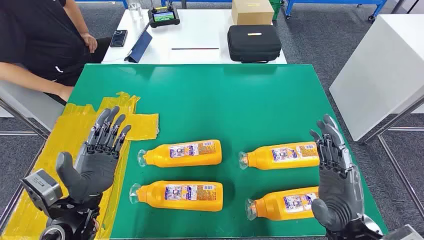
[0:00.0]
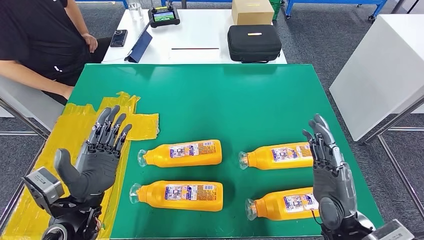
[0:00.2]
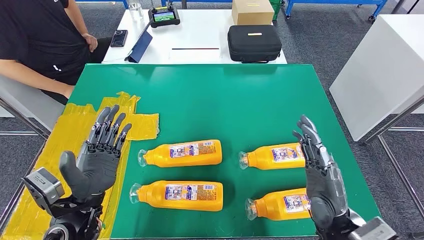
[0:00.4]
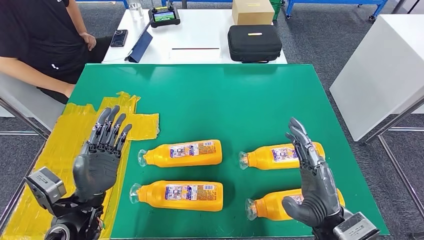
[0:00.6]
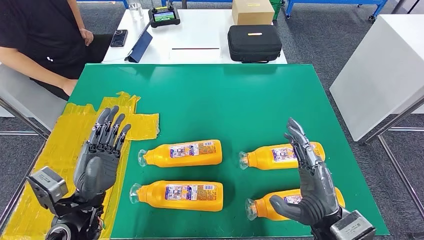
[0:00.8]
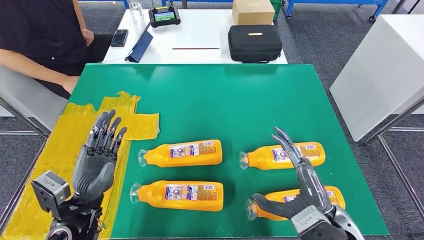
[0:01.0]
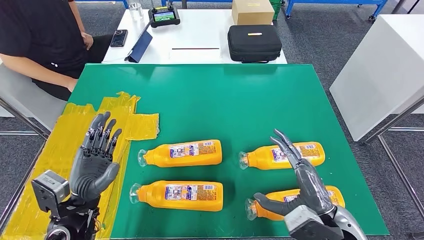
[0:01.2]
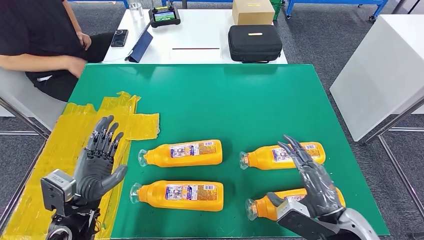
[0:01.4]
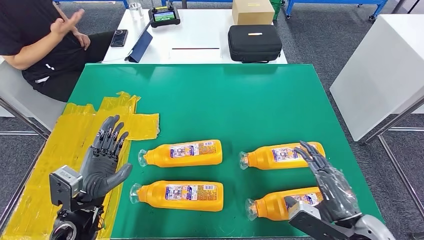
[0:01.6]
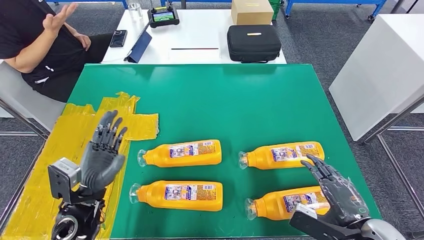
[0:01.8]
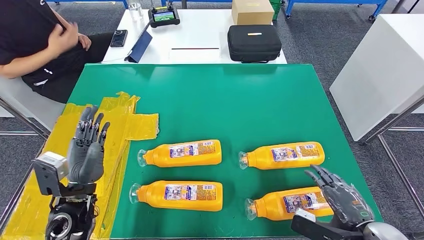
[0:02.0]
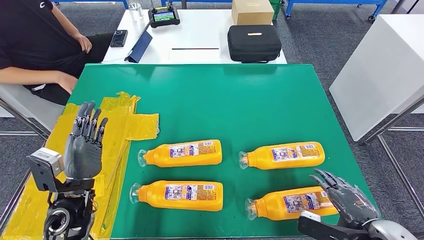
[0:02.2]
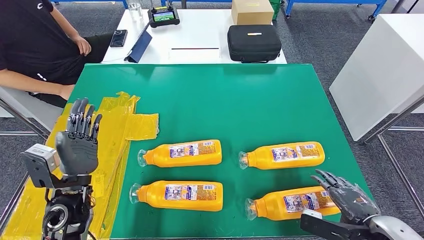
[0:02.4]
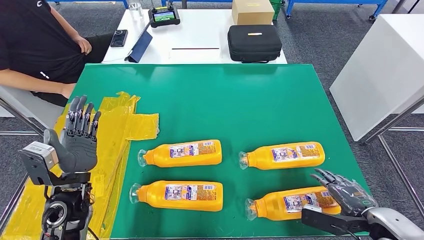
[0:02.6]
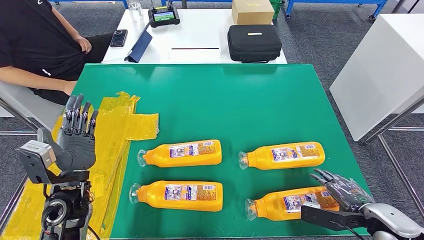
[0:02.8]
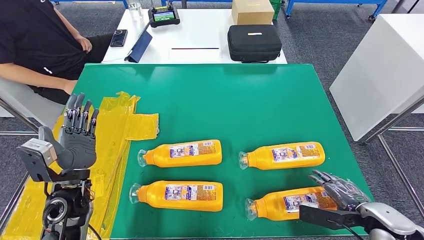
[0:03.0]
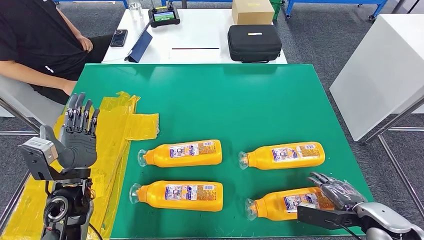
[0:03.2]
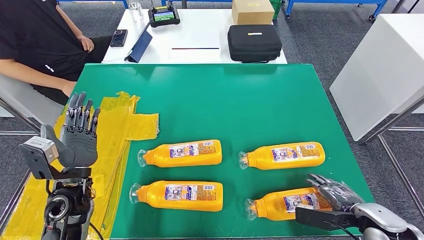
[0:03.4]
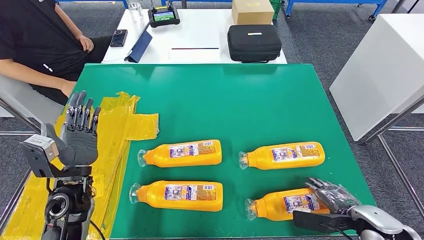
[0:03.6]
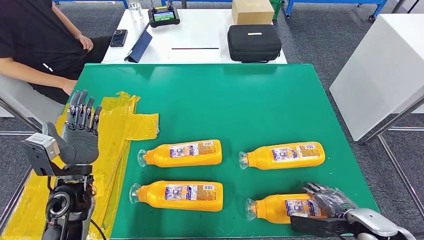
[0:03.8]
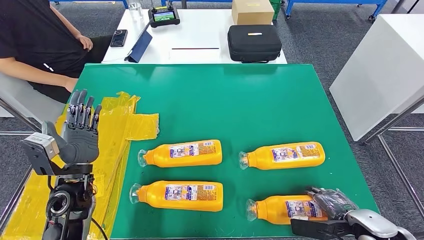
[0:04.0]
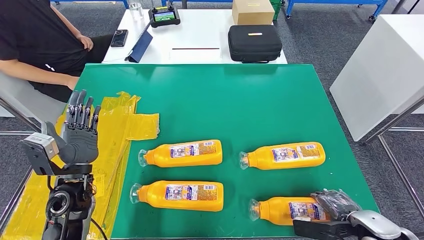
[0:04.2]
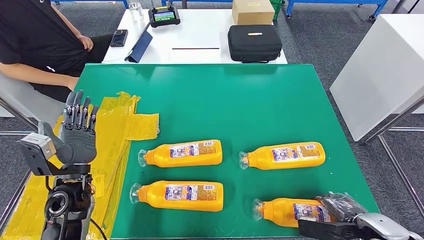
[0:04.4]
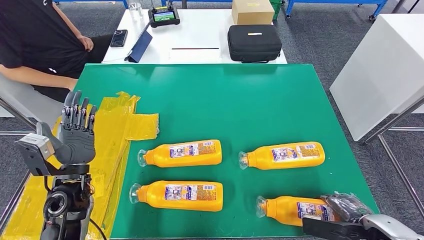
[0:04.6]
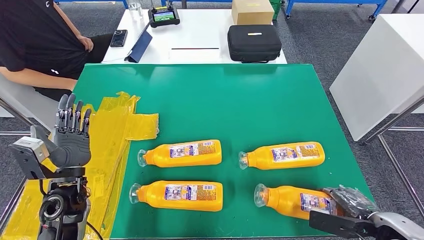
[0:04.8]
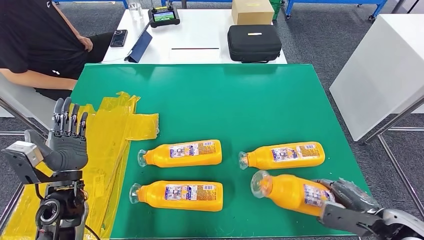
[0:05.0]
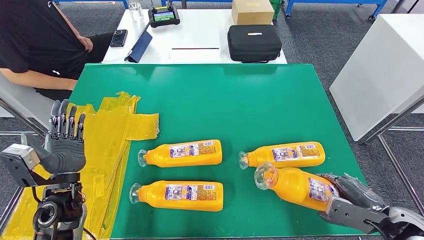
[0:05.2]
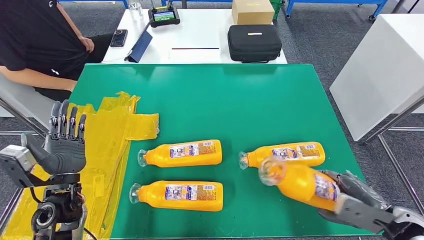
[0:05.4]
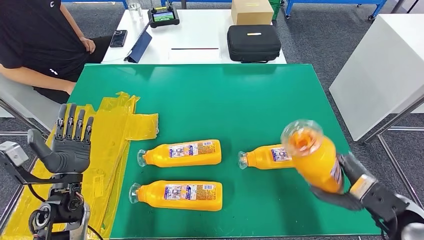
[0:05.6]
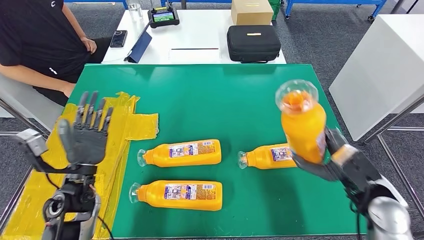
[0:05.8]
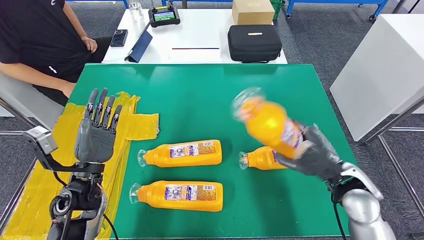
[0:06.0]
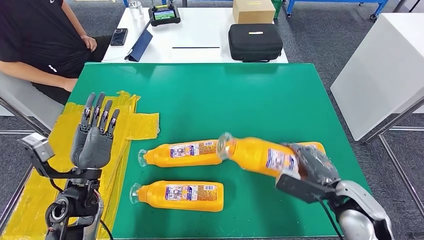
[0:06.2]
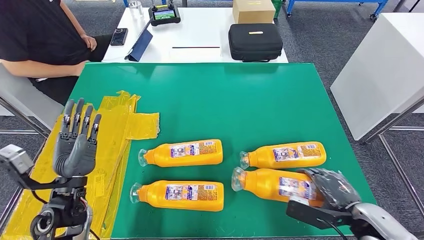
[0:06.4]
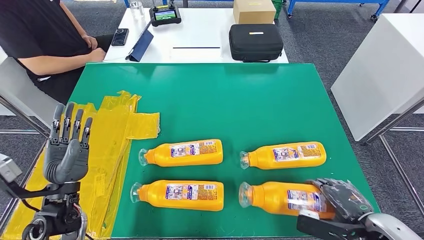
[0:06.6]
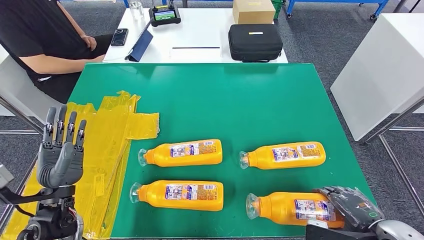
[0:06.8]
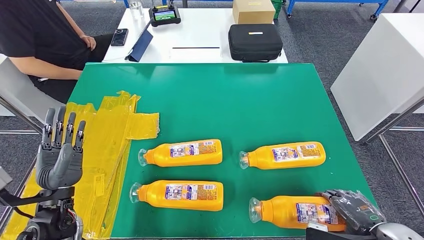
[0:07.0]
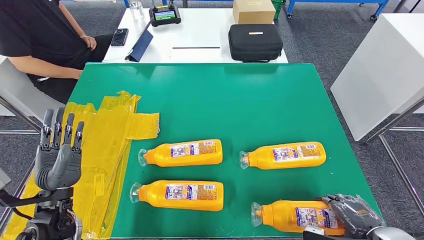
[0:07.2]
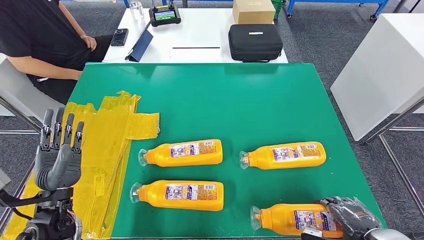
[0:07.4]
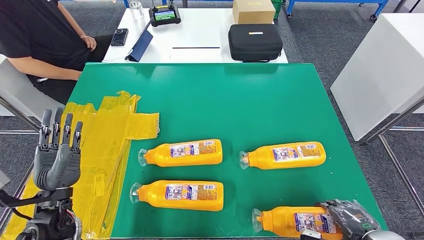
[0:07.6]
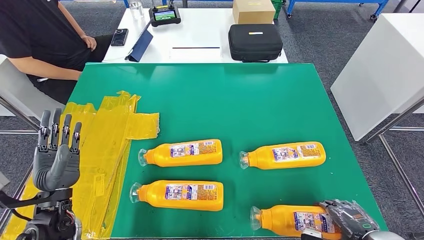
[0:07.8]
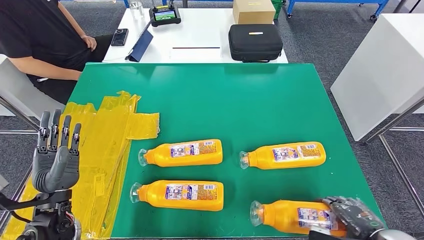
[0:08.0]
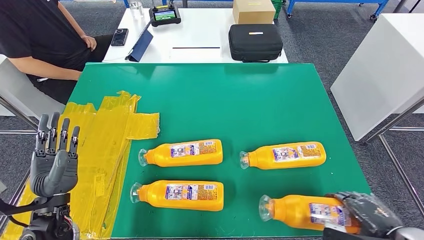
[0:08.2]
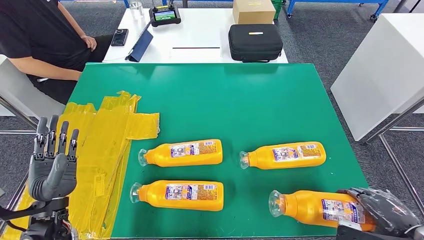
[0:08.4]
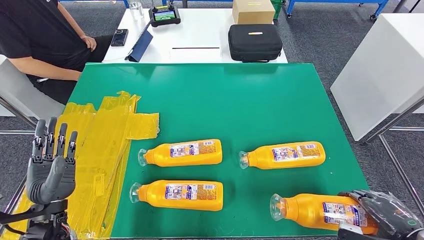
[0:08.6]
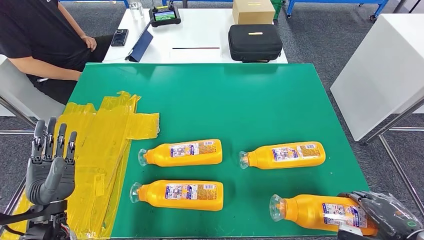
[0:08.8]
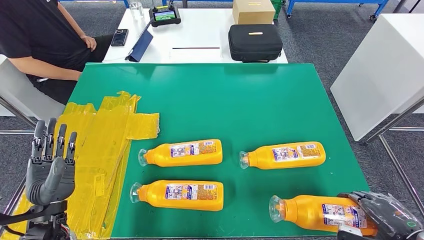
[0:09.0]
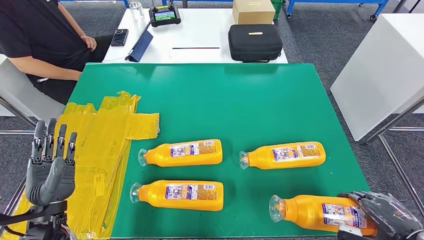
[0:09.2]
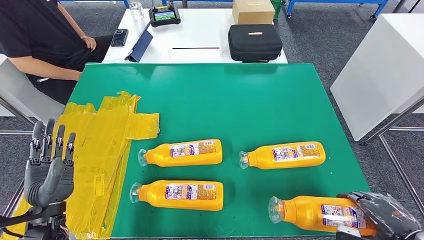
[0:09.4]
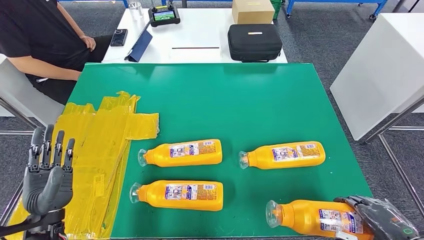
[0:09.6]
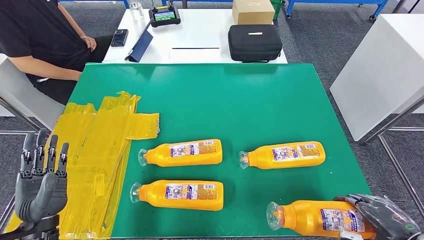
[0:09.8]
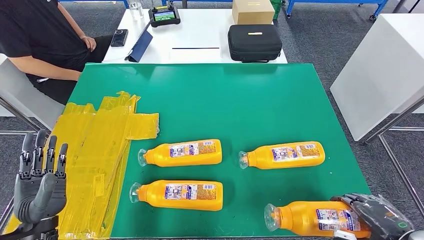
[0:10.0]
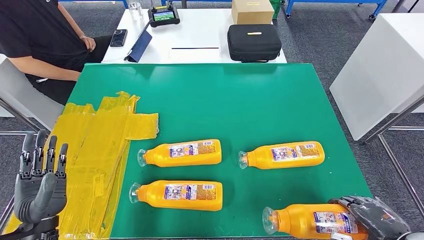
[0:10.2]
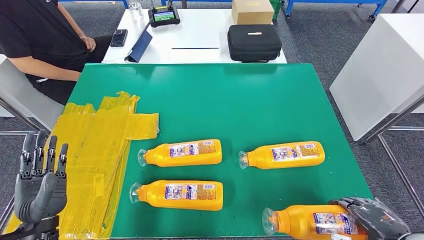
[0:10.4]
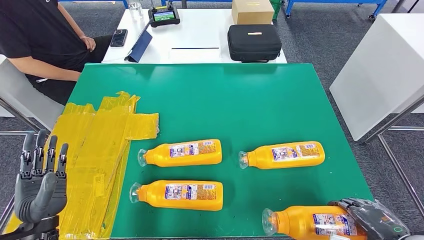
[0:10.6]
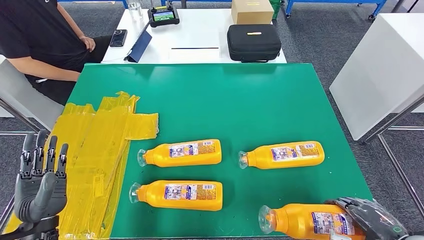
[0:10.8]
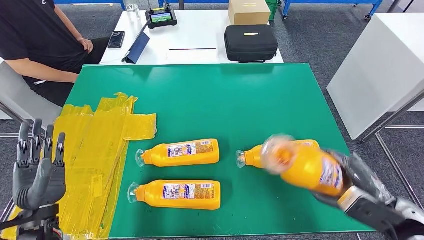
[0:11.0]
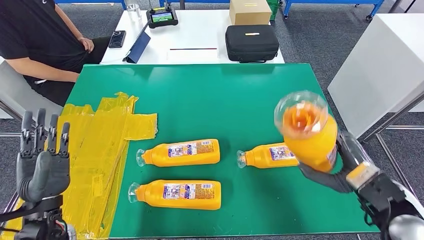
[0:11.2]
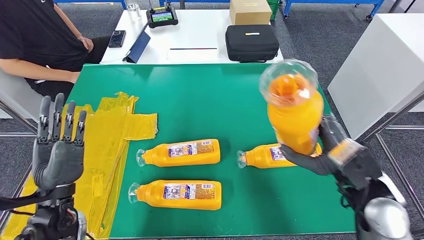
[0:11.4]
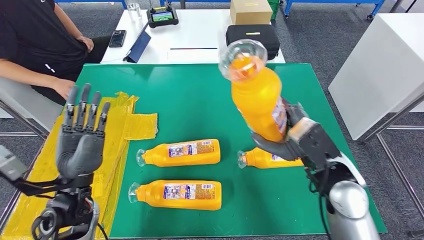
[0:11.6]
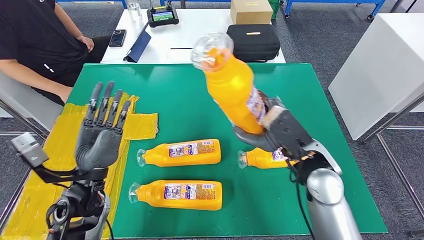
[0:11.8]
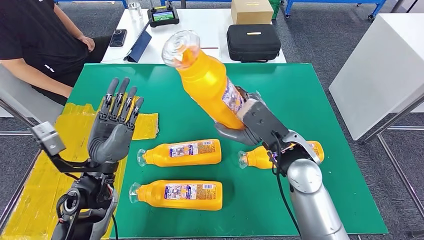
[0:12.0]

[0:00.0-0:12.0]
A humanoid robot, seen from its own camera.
0:01.6 to 0:03.0: The right hand travels to the right by roughly 10 cm. Meanwhile the left hand ends up about 5 cm from where it was.
0:03.0 to 0:04.4: There are only small adjustments of the hands.
0:04.4 to 0:06.0: The right hand is displaced forward, to the left and upward by approximately 15 cm.
0:07.6 to 0:09.0: The right hand is displaced to the right and upward by approximately 10 cm.
0:09.0 to 0:10.4: The hands move only a little.

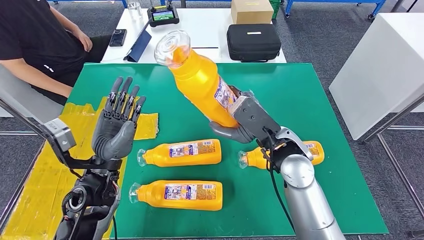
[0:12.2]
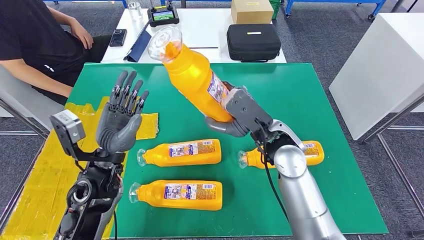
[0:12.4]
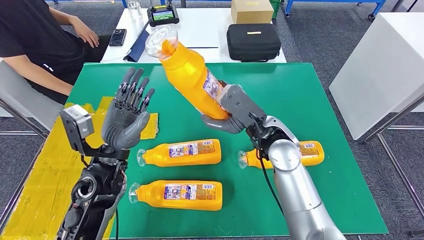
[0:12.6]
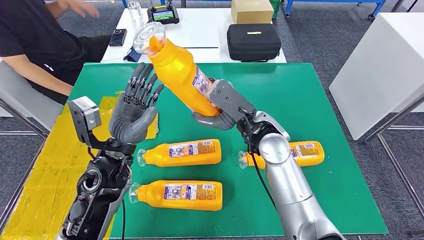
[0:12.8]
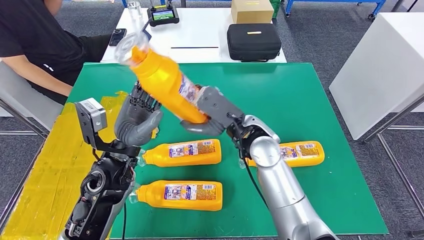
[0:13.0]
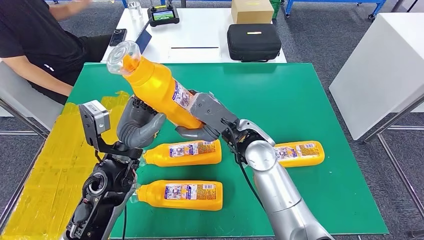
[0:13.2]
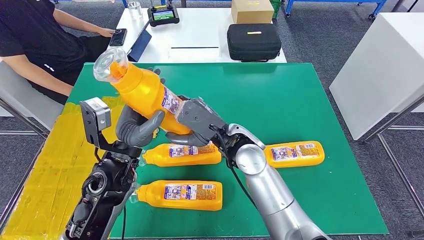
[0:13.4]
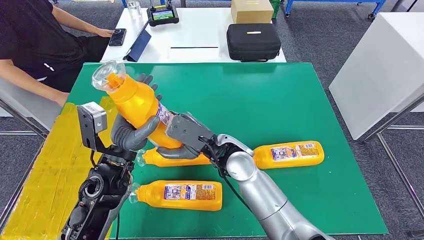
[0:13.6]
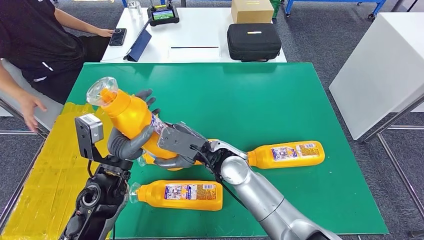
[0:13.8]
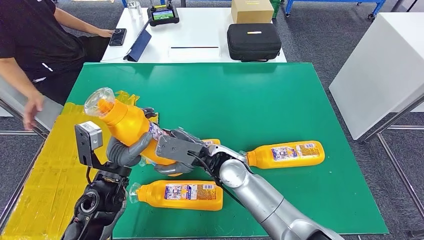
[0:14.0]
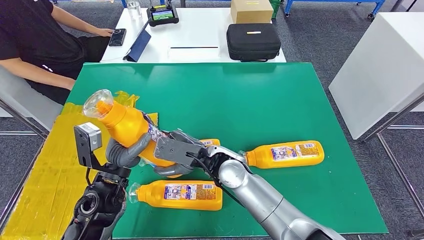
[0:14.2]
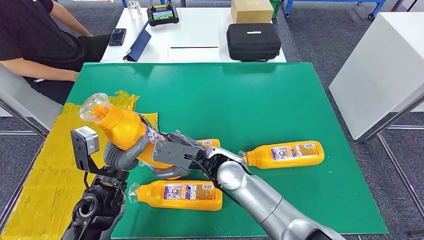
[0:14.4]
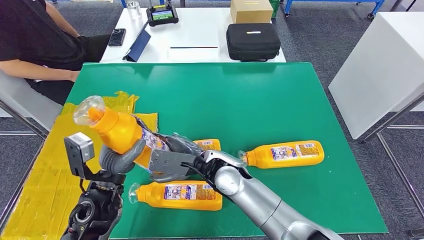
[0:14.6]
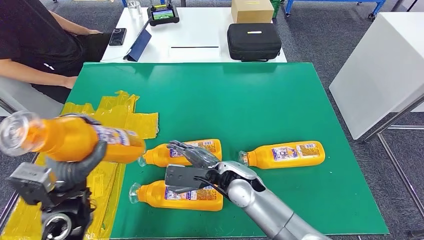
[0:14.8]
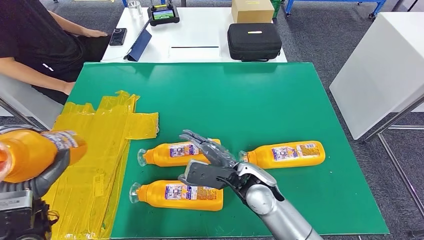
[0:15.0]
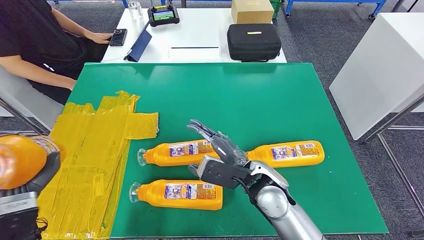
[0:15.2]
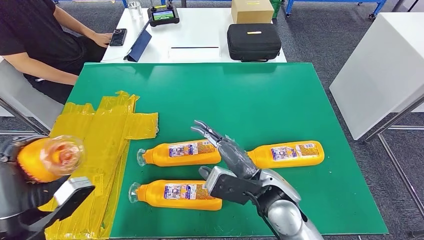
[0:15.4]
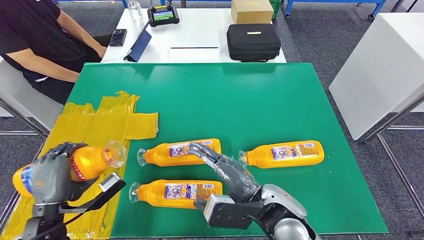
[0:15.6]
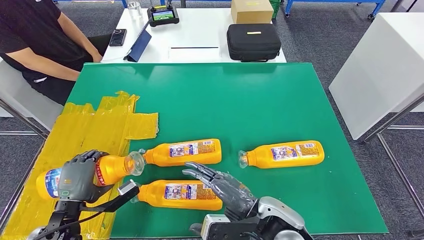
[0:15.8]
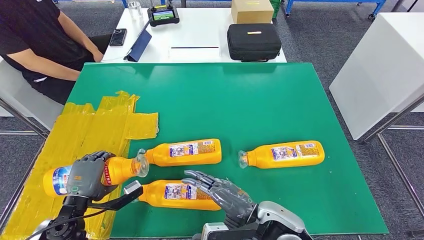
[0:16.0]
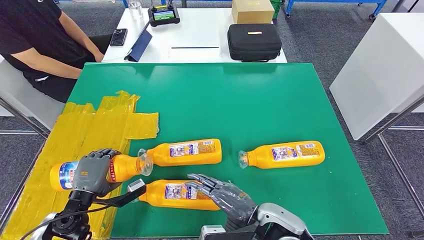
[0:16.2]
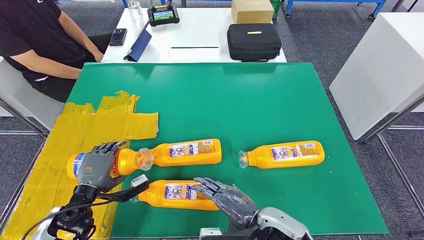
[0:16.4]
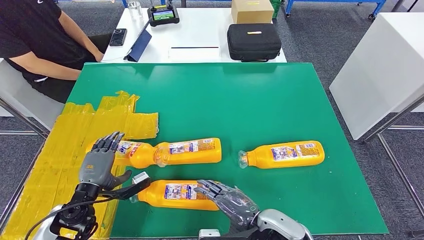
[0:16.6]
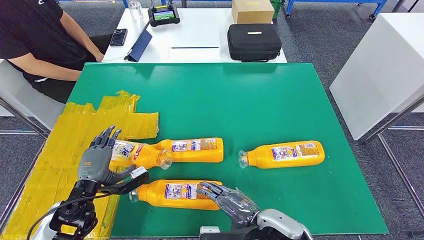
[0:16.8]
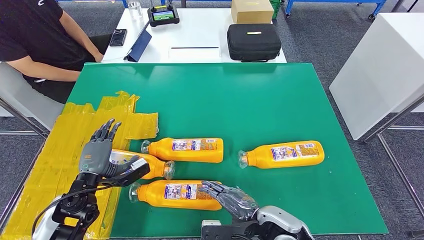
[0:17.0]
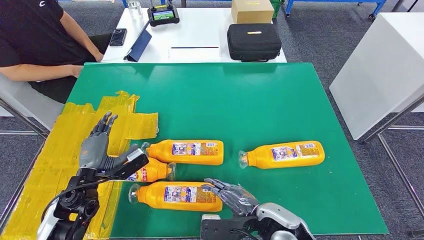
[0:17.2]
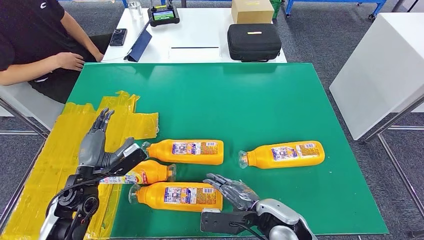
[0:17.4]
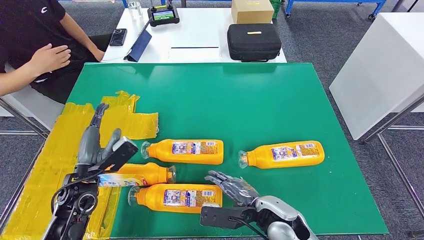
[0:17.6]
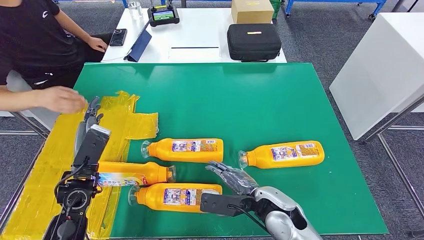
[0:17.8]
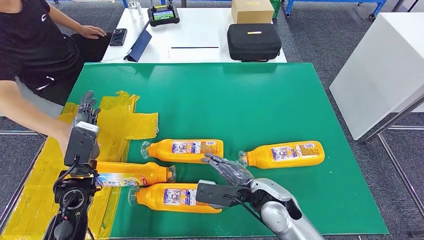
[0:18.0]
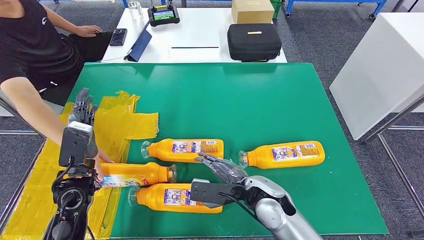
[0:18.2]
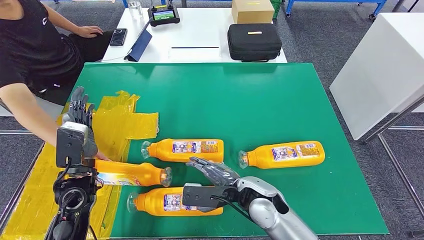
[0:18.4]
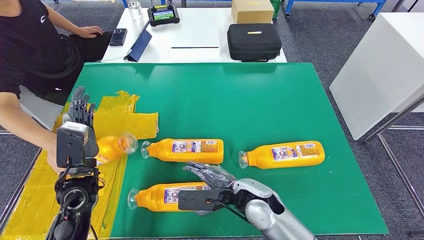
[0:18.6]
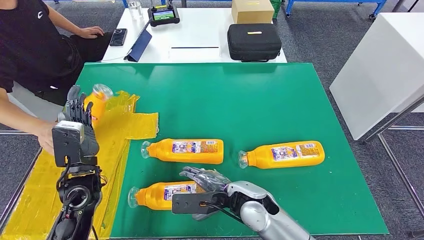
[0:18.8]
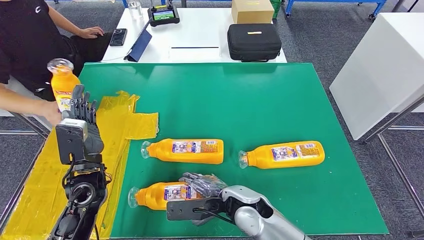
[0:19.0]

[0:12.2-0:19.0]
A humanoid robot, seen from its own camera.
Step, 0:14.2 to 0:16.2: Flip the fast-moving consumer goods bottle to the front side.
0:16.2 to 0:17.6: The left hand moves forward, about 5 cm; the right hand changes place by some 5 cm.
0:17.6 to 0:19.0: The right hand travels to the left by roughly 10 cm. Meanwhile the left hand changes place by about 5 cm.
